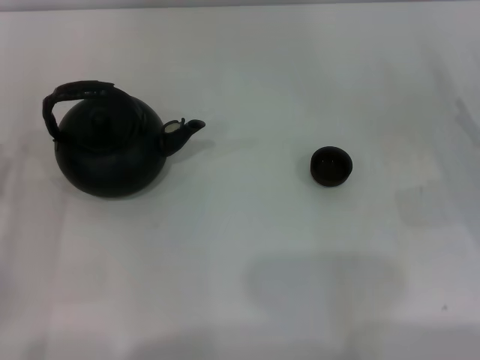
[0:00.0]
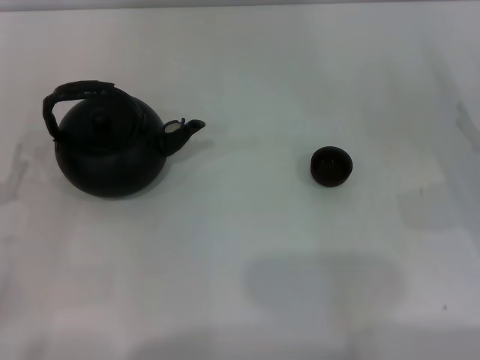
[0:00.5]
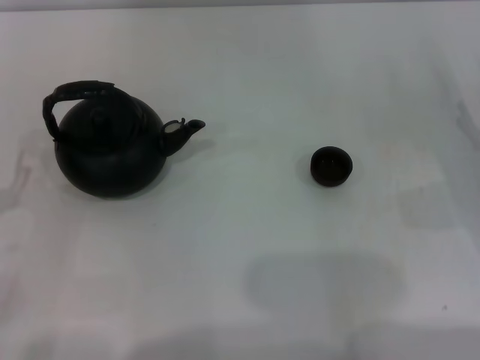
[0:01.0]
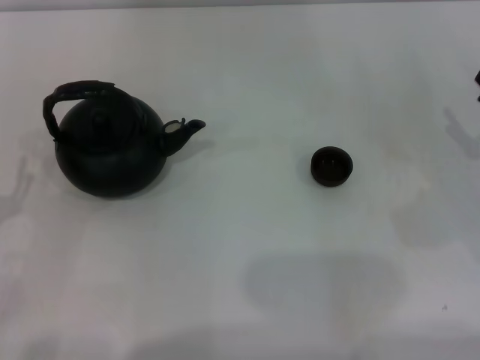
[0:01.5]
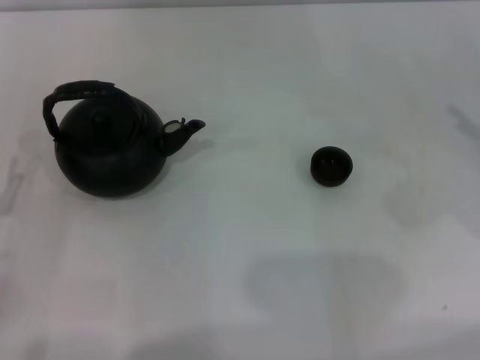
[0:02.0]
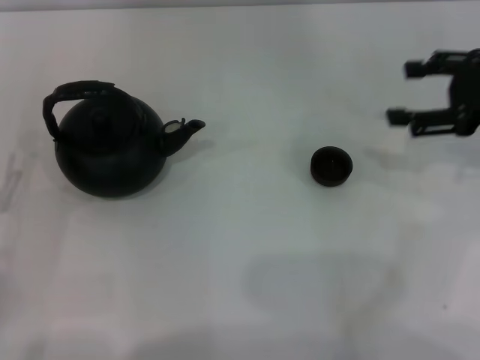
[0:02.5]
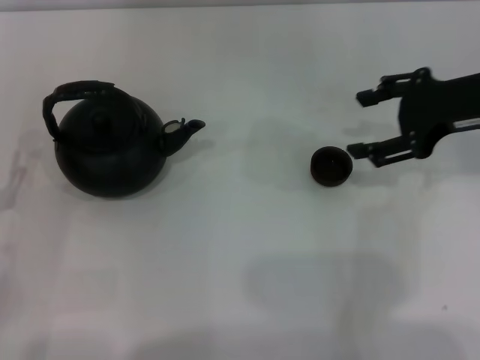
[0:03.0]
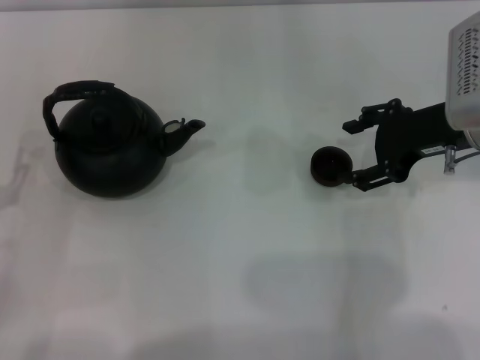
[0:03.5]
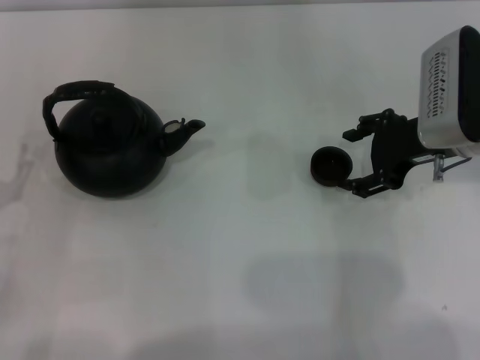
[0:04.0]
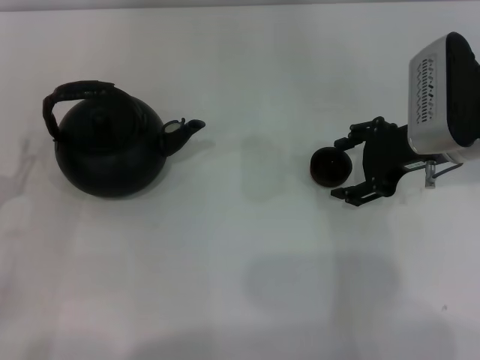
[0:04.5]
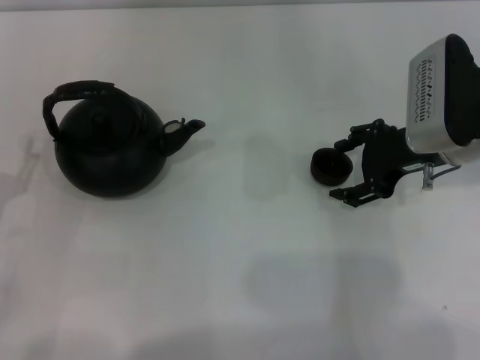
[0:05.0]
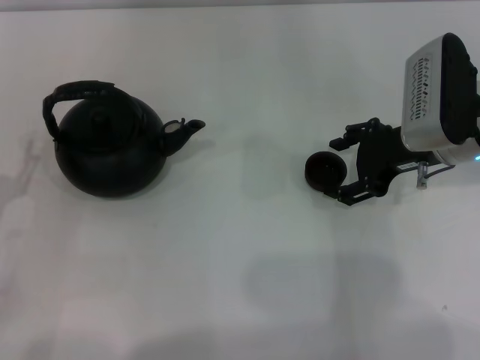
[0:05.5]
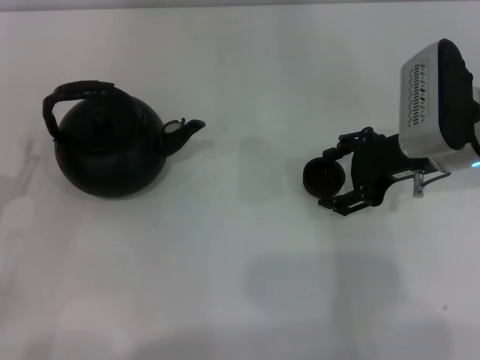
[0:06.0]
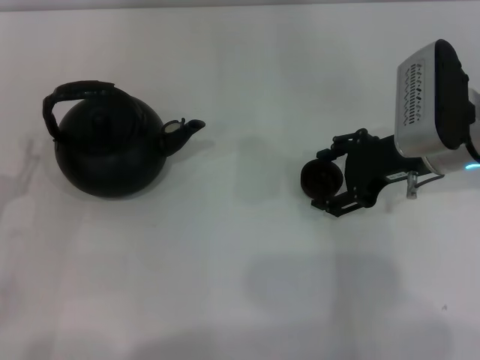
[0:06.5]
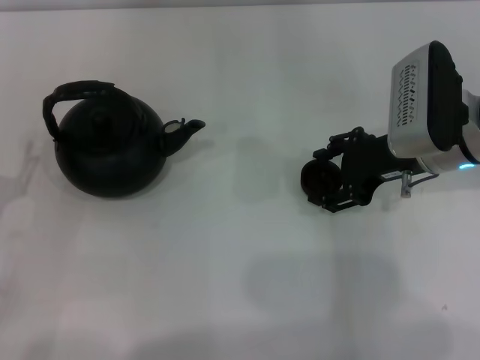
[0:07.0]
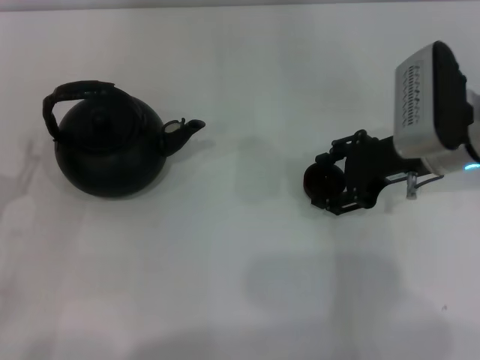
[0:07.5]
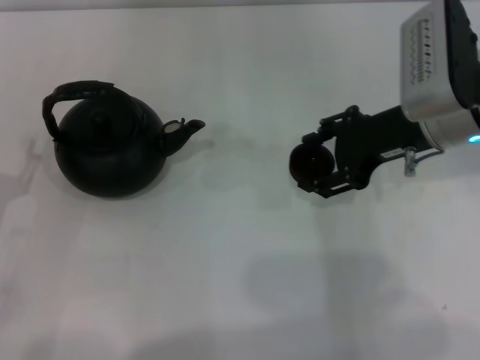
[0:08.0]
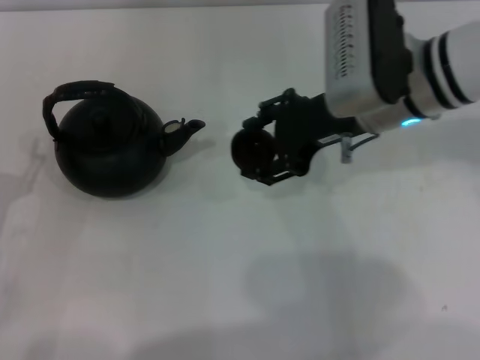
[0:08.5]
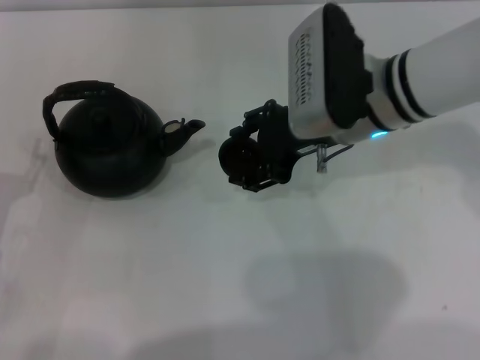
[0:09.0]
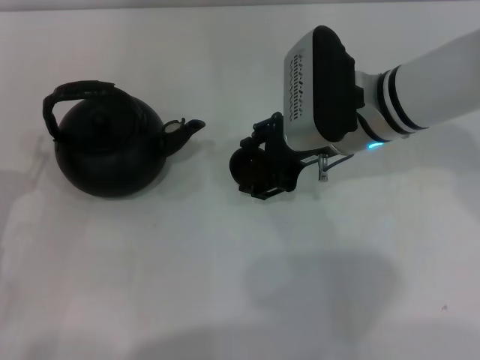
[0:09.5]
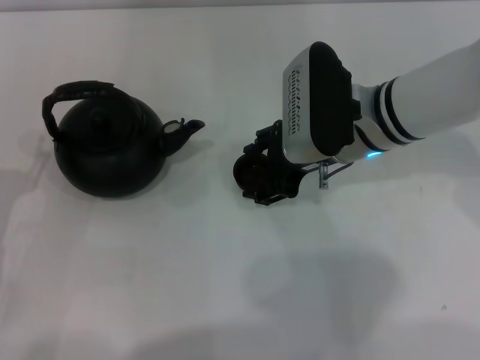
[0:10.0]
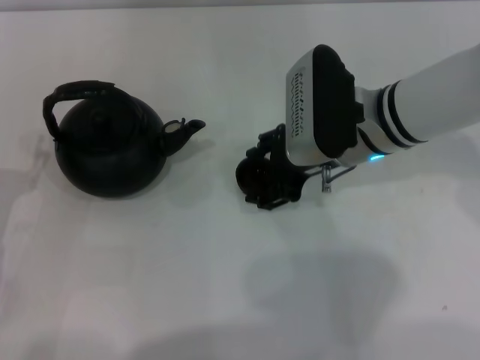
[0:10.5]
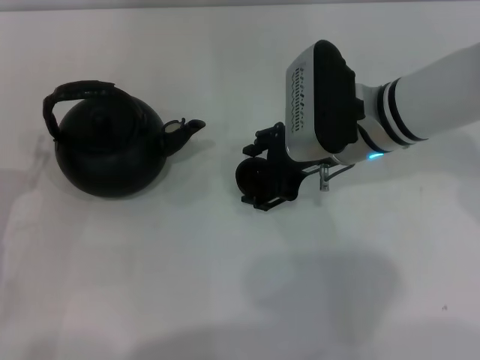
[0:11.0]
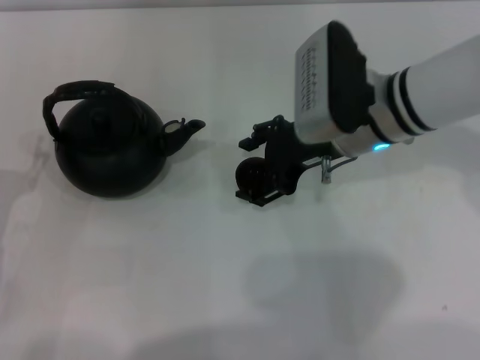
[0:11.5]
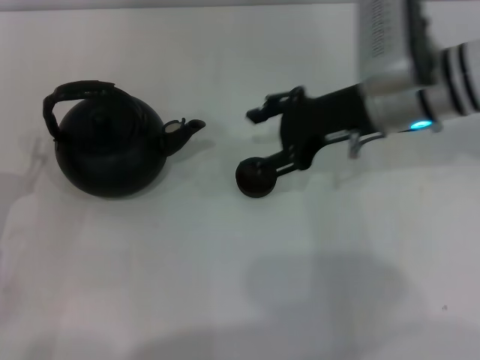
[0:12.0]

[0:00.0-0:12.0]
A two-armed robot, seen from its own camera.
Task of the whole recording: Grasp the handle of the teapot with one hand and pour tea into the teacup.
Step, 0:00.0 to 0:07.5: Pick up the teacup with the right gripper.
Step, 0:08.0 to 0:12.0: Place the teacup in the center of view with the right gripper.
0:02.0 to 0:04.0: The right gripper travels to the left and forward by approximately 15 cm.
0:04.0 to 0:08.0: There are only small adjustments of the grippers.
0:08.0 to 0:10.0: The right gripper goes some 10 cm to the left.
0:10.0 to 0:12.0: The right gripper changes place by about 5 cm.

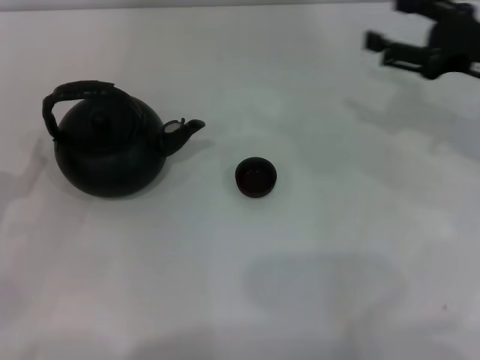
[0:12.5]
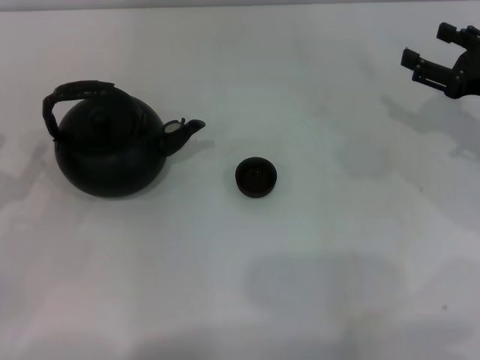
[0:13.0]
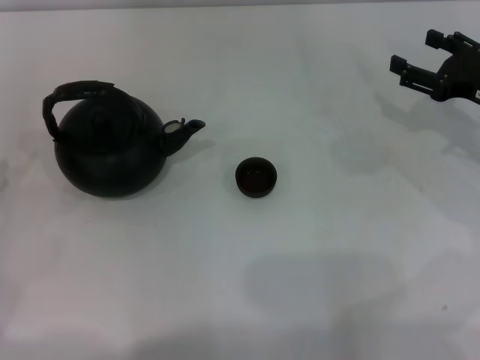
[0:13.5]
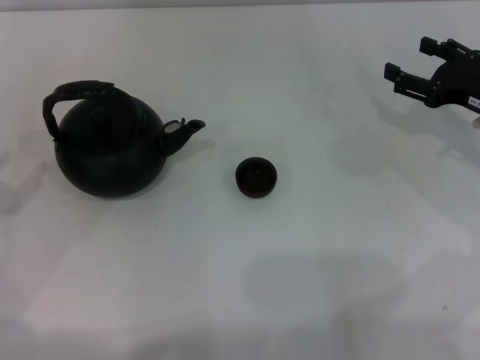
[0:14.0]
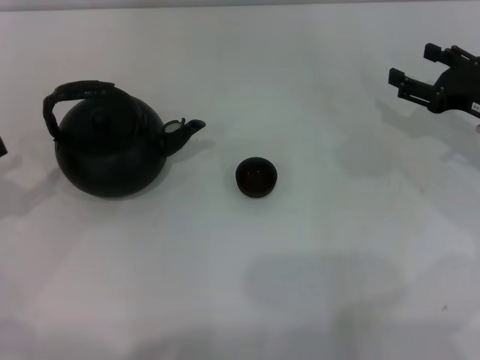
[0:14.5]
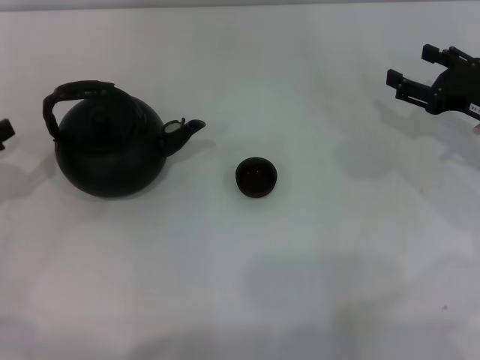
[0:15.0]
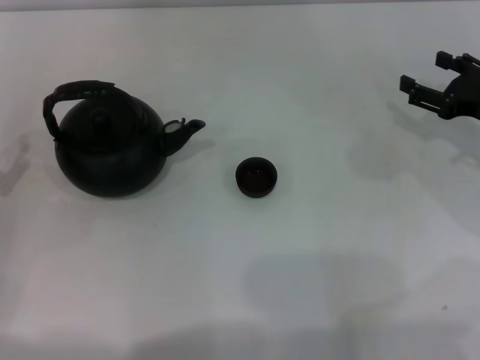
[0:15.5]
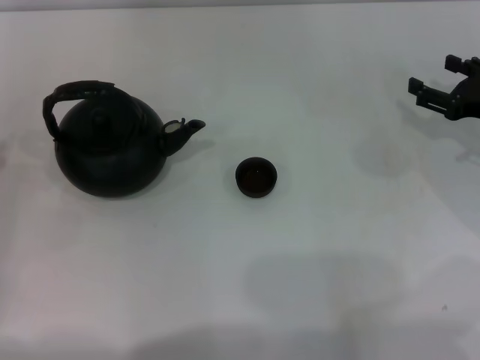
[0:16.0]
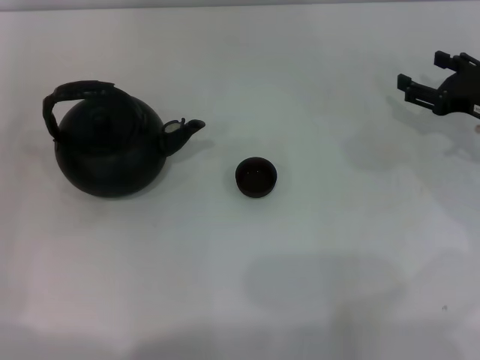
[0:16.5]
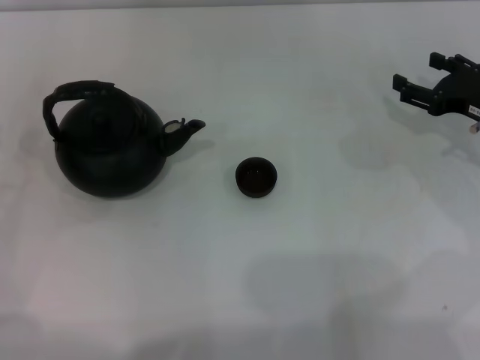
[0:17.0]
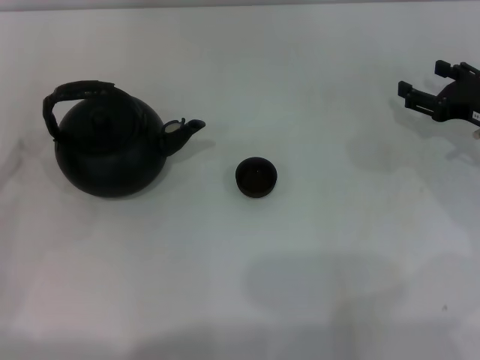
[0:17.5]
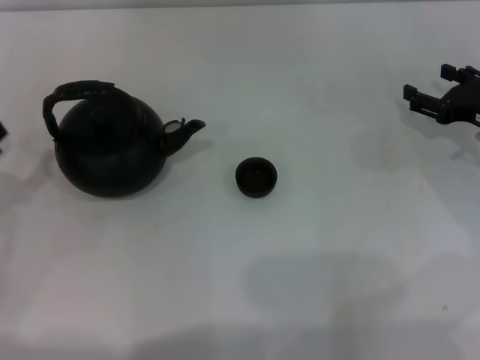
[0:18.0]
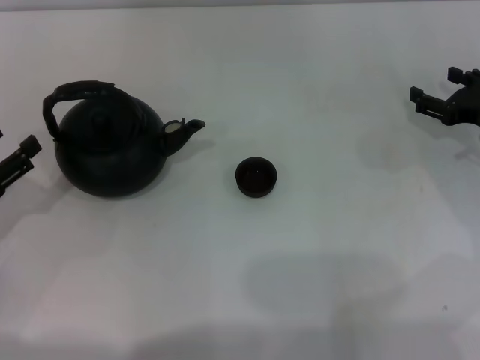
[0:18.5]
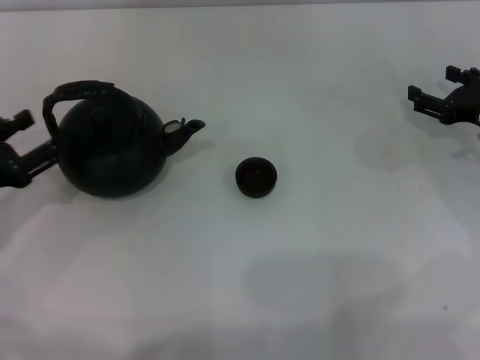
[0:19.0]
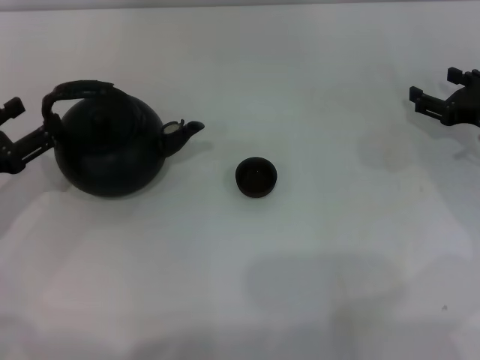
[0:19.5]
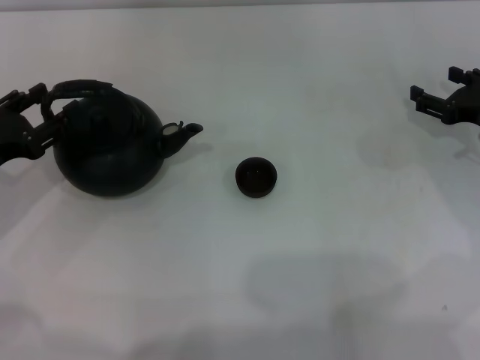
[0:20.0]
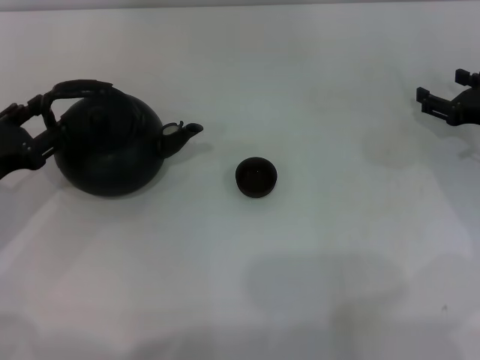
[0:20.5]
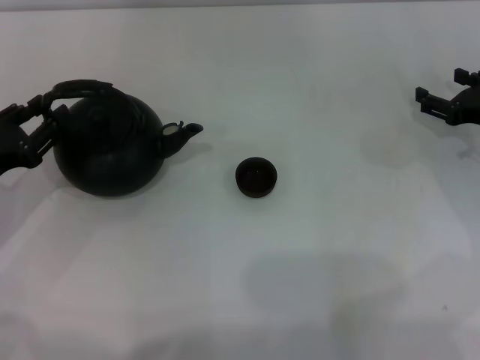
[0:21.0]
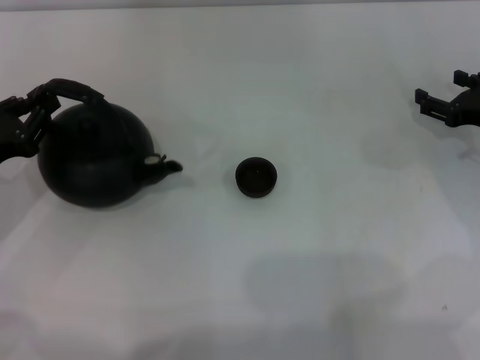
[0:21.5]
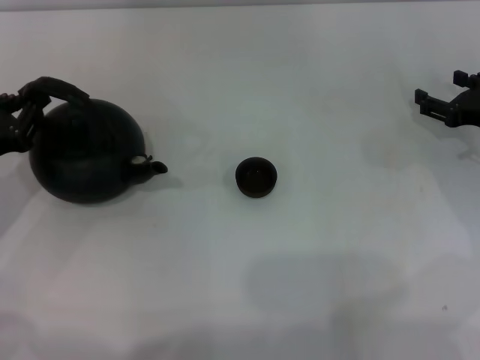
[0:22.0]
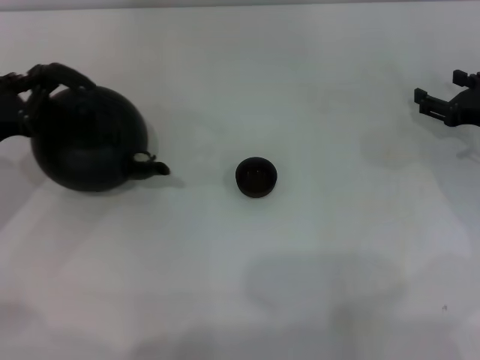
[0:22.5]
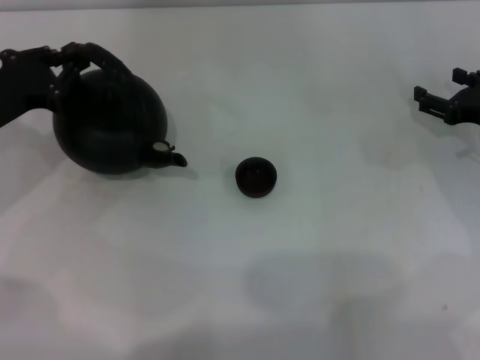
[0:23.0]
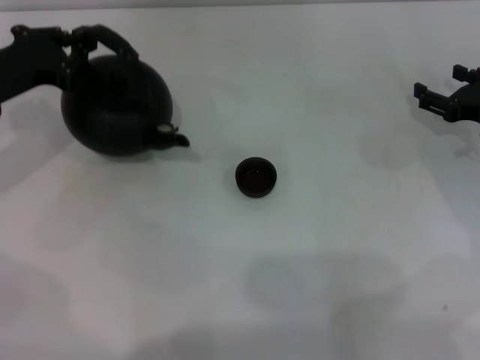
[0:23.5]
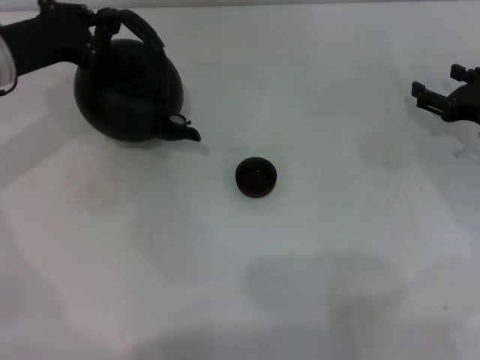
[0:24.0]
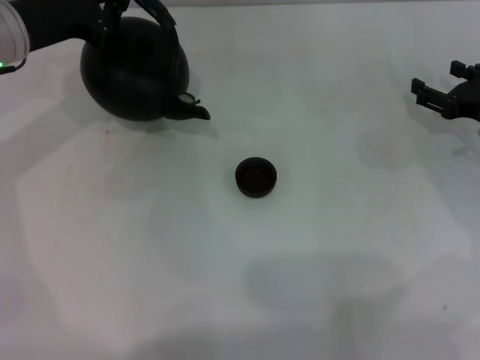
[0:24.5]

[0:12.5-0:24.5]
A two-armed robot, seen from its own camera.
Task of the whole recording: Grasp the handle of the teapot with one hand and pour tea into the teacup.
Step, 0:12.5 to 0:22.5: Pick up the teapot with the left gripper.
0:12.5 to 0:14.5: The right gripper travels downward by about 5 cm.
0:16.5 to 0:18.5: The left gripper shifts roughly 15 cm downward and to the right.
0:20.5 to 0:22.5: The left gripper closes.
0:22.5 to 0:24.5: The left gripper moves forward, upward and to the right, about 15 cm.

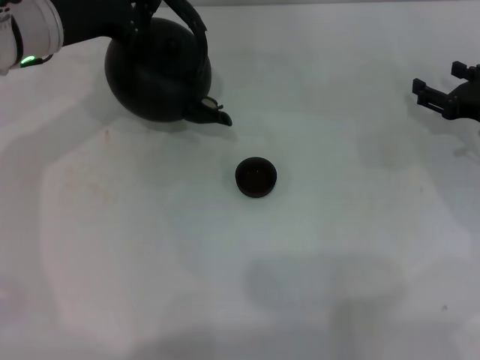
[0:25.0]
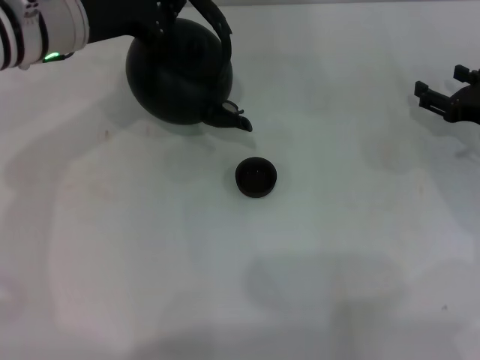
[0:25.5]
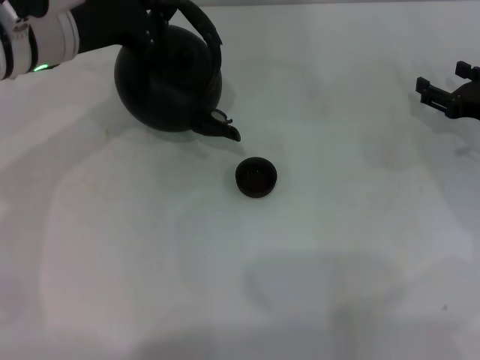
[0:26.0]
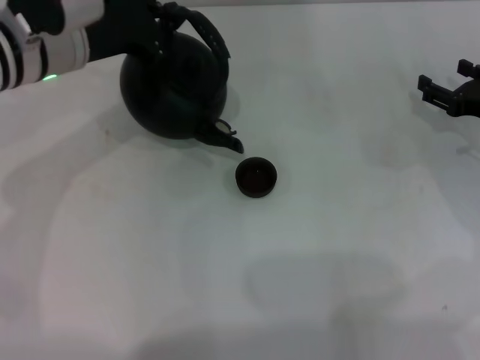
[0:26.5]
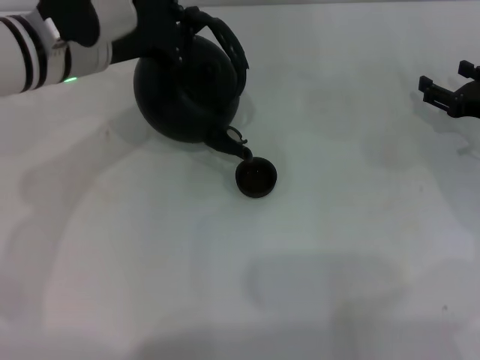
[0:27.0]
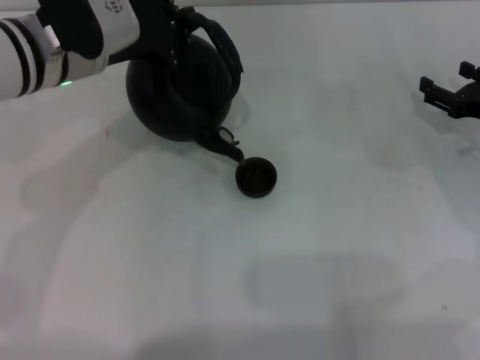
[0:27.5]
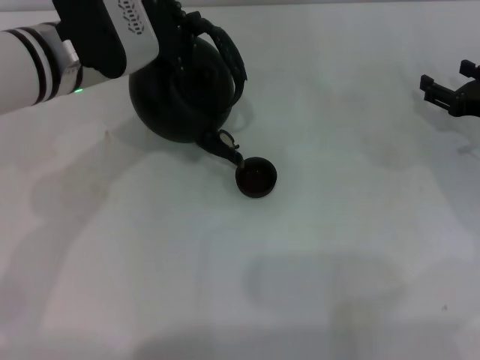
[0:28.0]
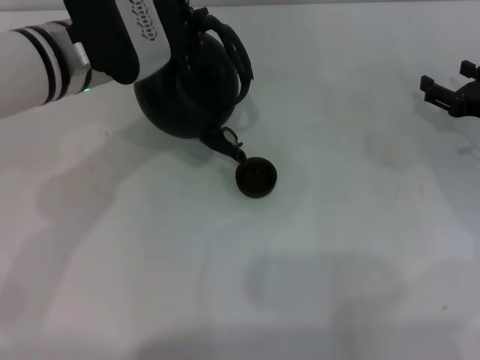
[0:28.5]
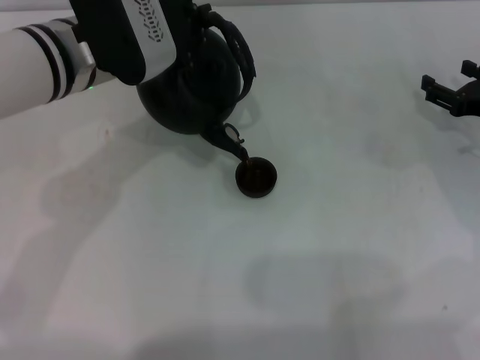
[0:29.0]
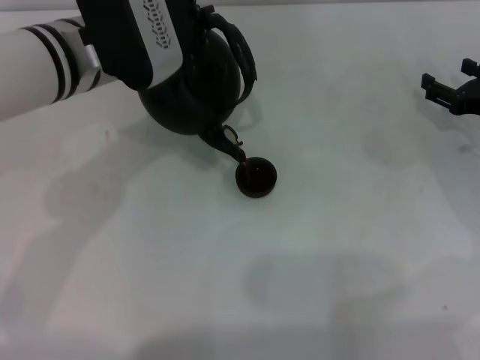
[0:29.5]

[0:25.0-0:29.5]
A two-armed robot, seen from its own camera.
Task of the whole recording: Grasp the handle of the teapot with one hand and pour tea into the teacup.
0:25.0 to 0:27.0: The left gripper moves approximately 5 cm.
0:27.0 to 0:29.5: There are only small adjustments of the grippers.
